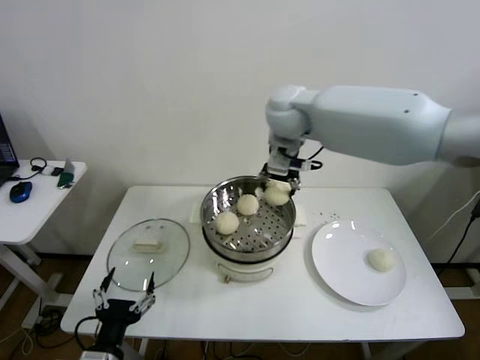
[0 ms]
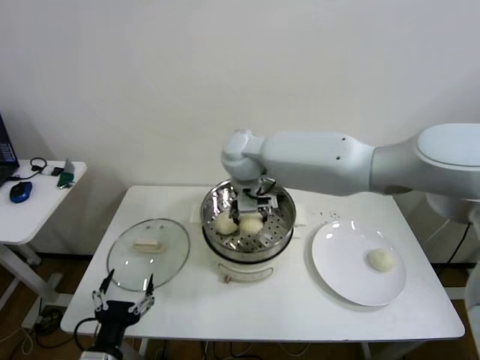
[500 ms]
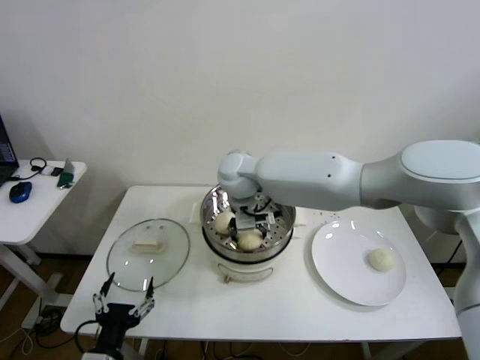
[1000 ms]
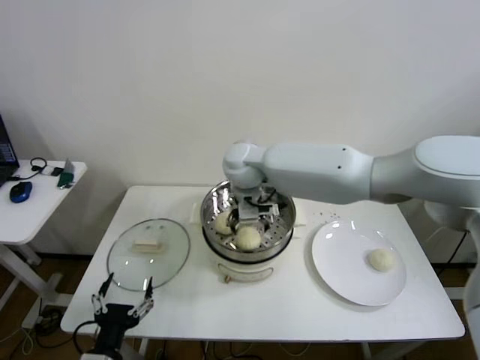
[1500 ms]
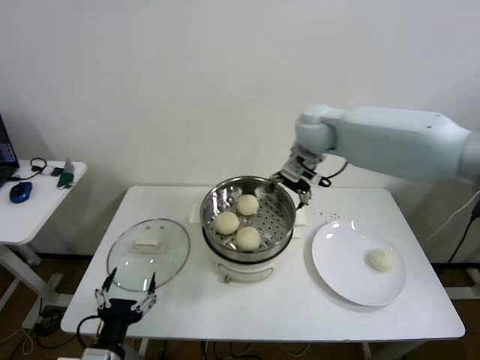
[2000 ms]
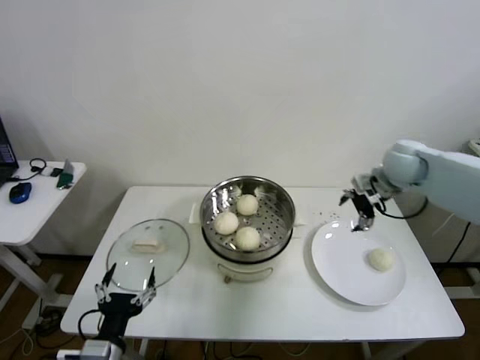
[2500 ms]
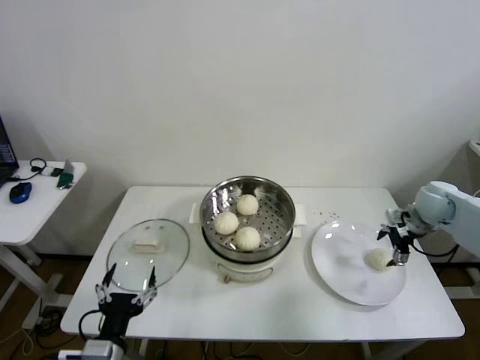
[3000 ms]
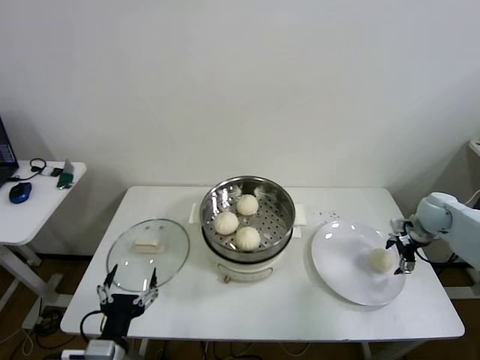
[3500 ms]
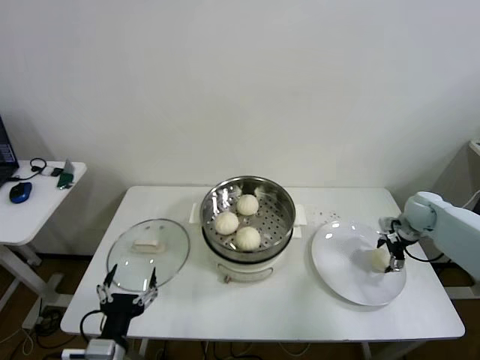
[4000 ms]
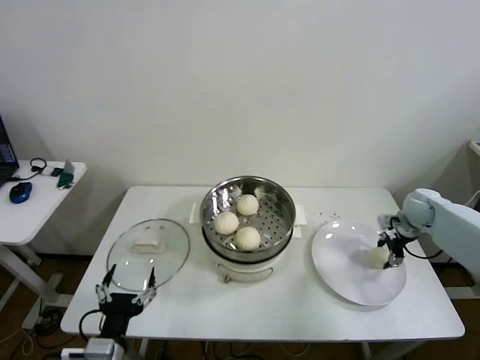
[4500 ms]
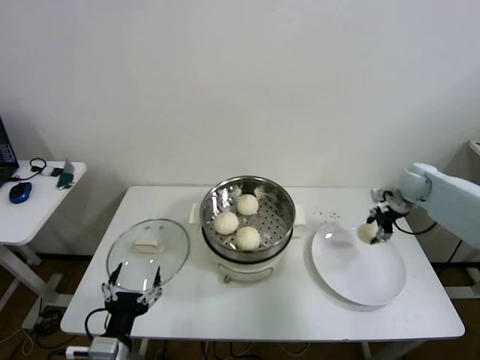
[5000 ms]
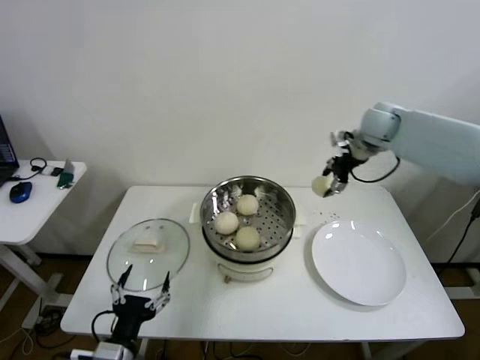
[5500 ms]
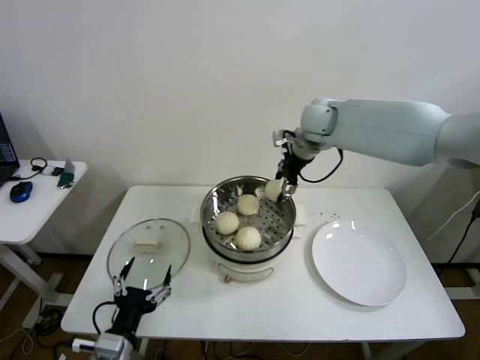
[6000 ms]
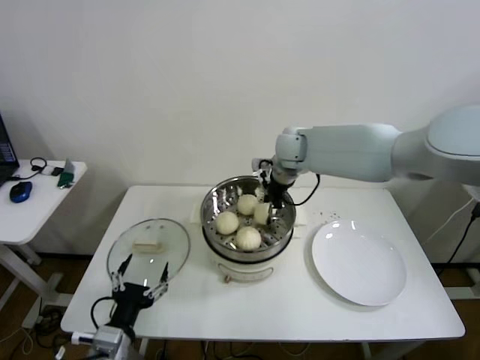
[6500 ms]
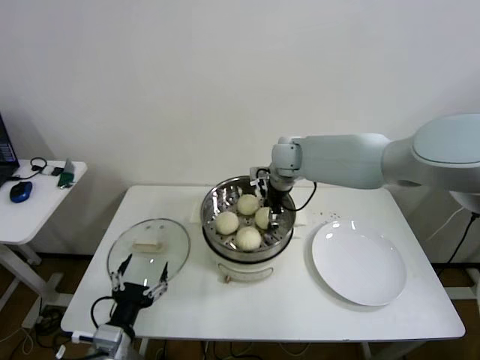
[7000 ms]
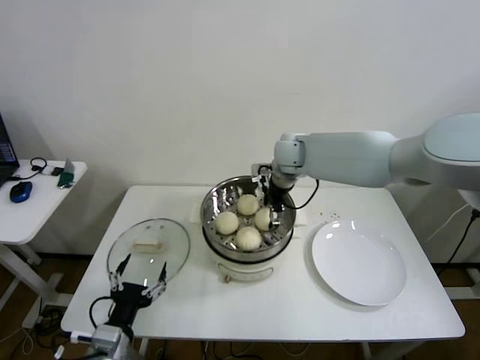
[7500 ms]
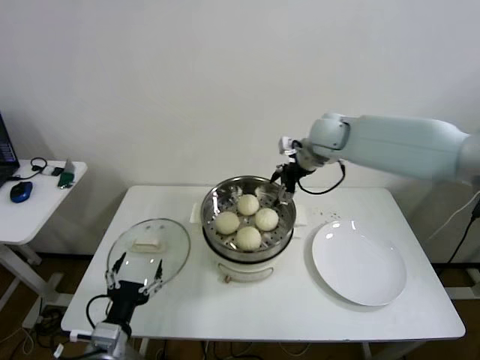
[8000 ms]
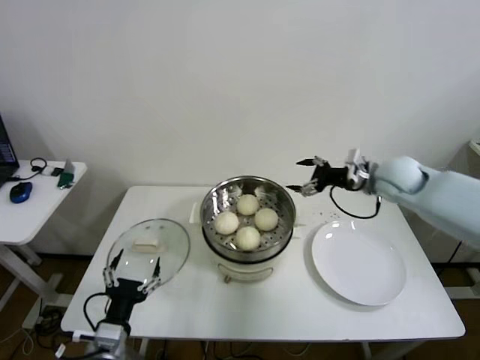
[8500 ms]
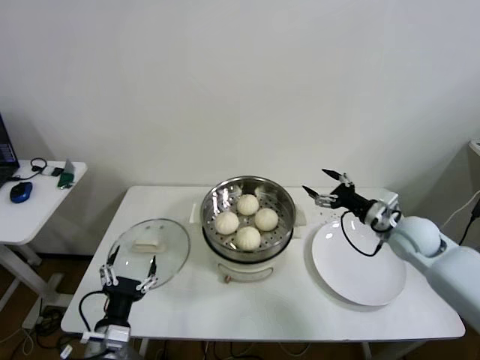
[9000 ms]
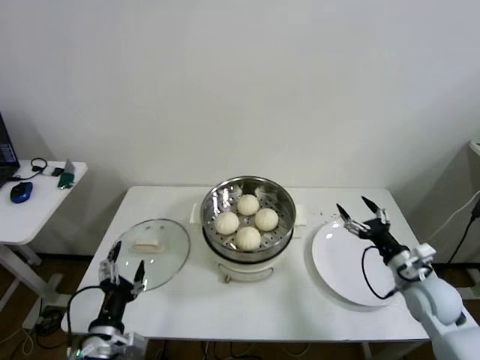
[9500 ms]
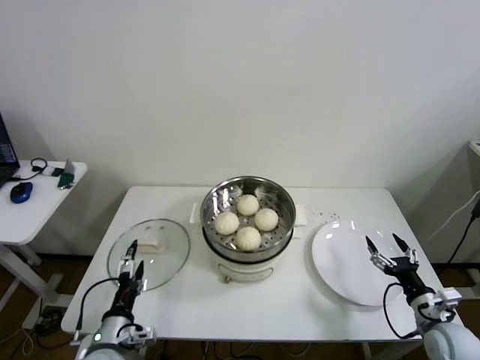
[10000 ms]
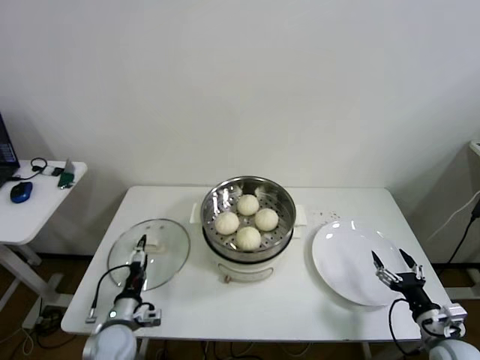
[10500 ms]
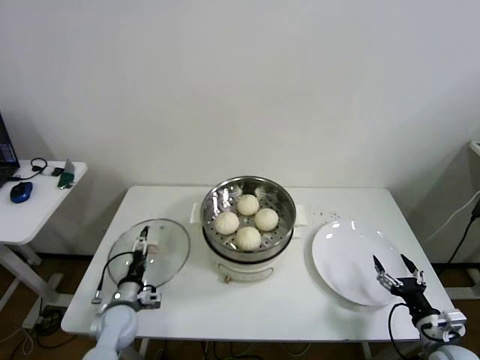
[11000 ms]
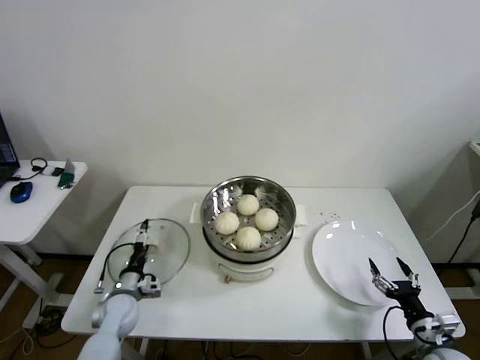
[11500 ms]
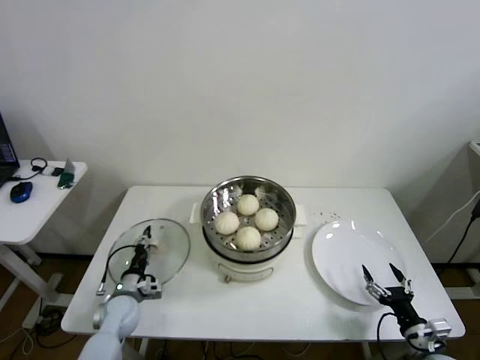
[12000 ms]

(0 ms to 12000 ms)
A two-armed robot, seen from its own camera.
Step, 1500 ms - 4000 ms: Grasp the baozi in the plate with right gripper.
Step, 4500 ms - 7000 ms: Place the baozi on the steamer with right gripper.
0 ms - 2000 ms: The right gripper travels to the right by about 10 cm, and opens.
2000 ms - 4000 ms: The right gripper moves to the right and downward, some 40 cm.
4000 ms - 6000 ms: The right gripper shifts roughly 35 cm to the left and upward, and closes up.
6000 ms - 8000 ms: The right gripper goes downward and returns, about 10 cm each way, and opens.
8000 ms - 10000 ms: The left gripper heads downward, covering some 5 cm. Meanwhile the right gripper heads backward, downward and to the right, covering approximately 50 cm.
10000 ms - 12000 ms: The right gripper goes about 5 cm downward; the left gripper is displaced forward and downward by about 15 cm, and closes its fingers.

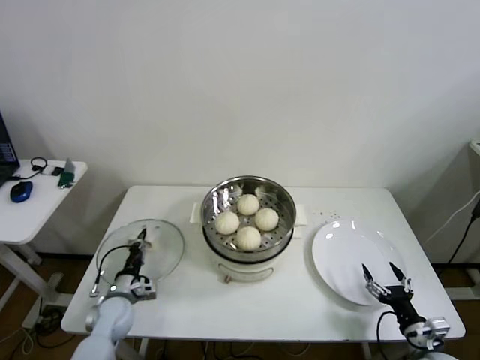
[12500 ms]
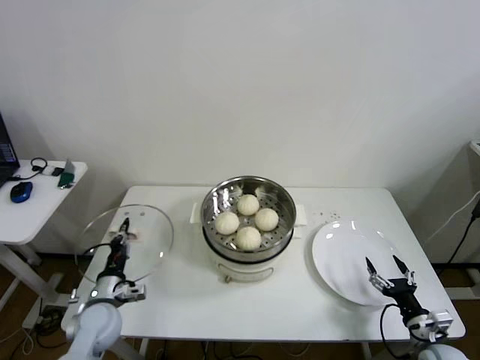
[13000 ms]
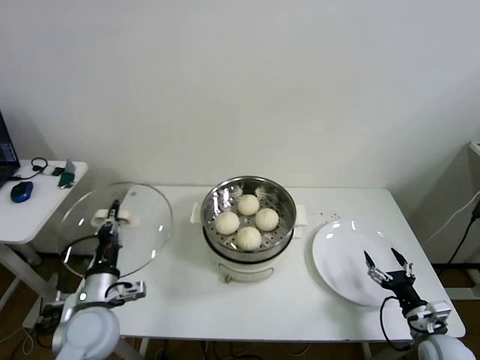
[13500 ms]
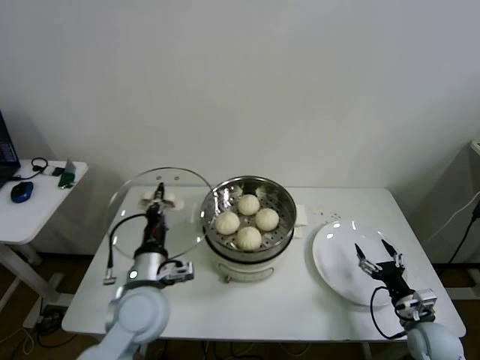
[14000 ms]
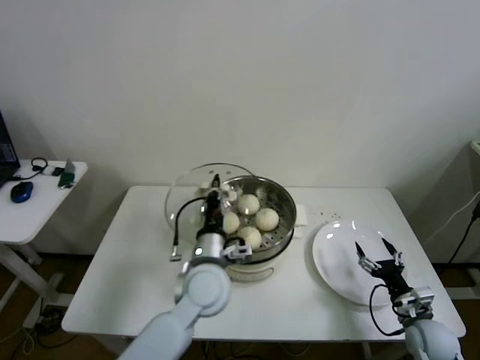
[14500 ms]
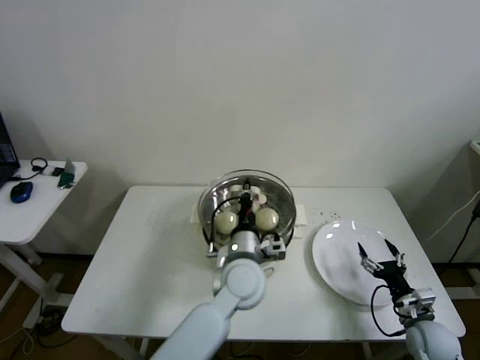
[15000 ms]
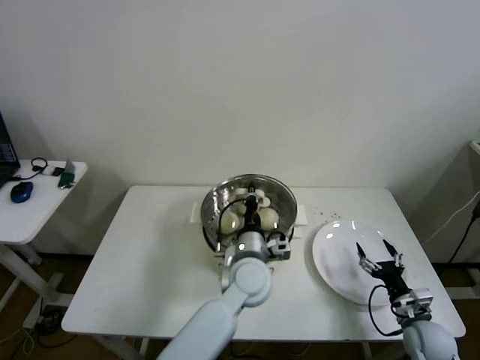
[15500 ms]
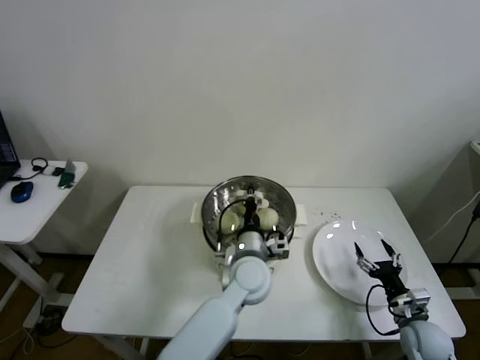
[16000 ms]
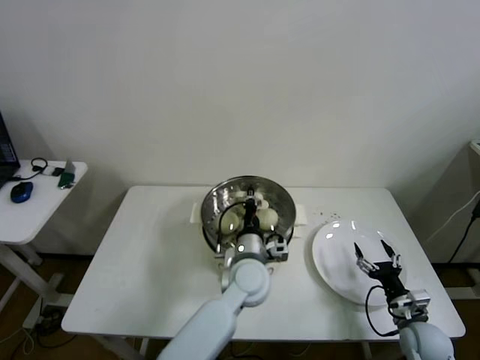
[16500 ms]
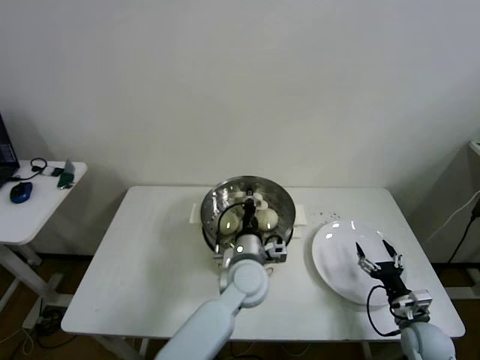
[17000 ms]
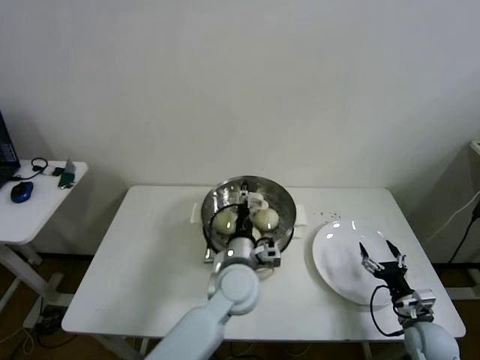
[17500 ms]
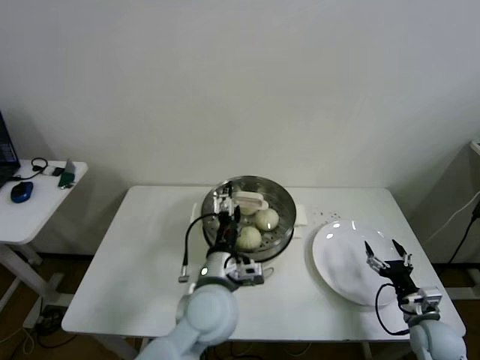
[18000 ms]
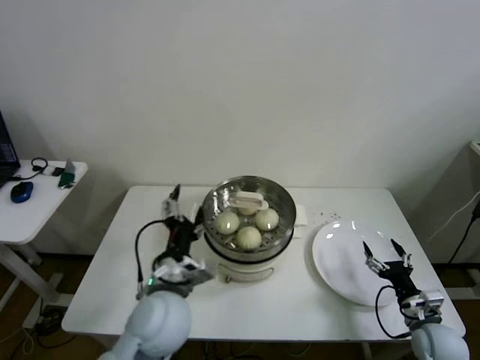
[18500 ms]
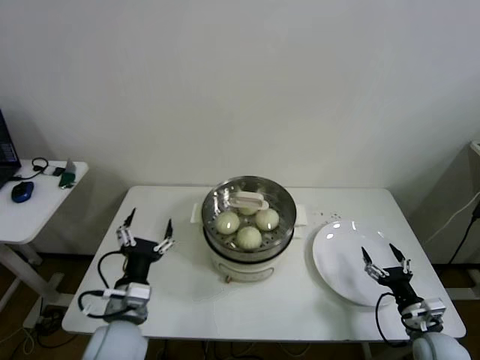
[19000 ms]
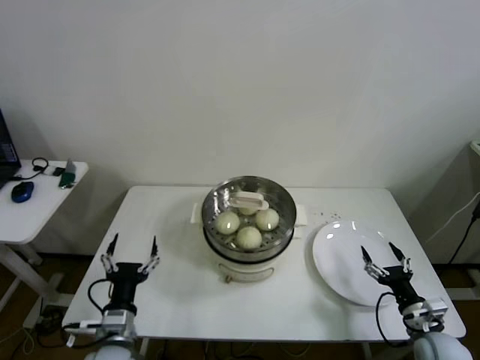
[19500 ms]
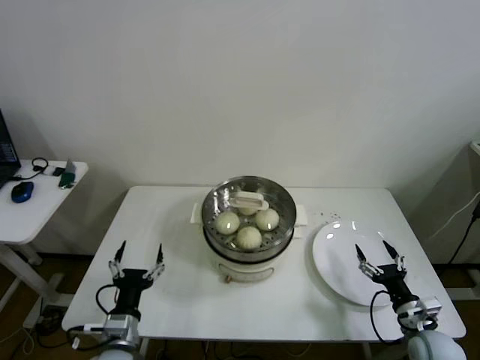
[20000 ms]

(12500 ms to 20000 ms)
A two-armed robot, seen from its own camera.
Step, 12500 ms - 17000 ms: Place the pot lid on the steamer with left gripper.
12500 ms - 14500 ms: The right gripper moves forward, approximately 5 cm; the left gripper travels to the right and upward by roughly 30 cm.
14500 ms - 16500 ms: The left gripper heads to the right, covering about 10 cm.
16500 ms - 18000 ms: The left gripper shifts about 10 cm backward and to the left, and opens.
18000 ms - 20000 ms: The left gripper travels to the left, downward and backward by some 25 cm.

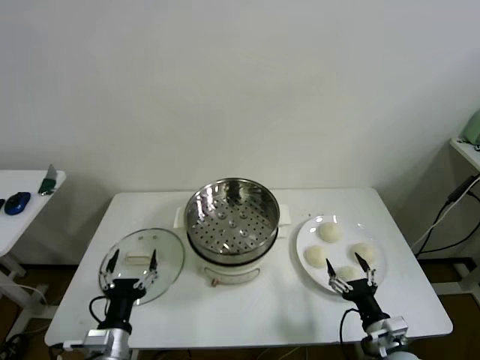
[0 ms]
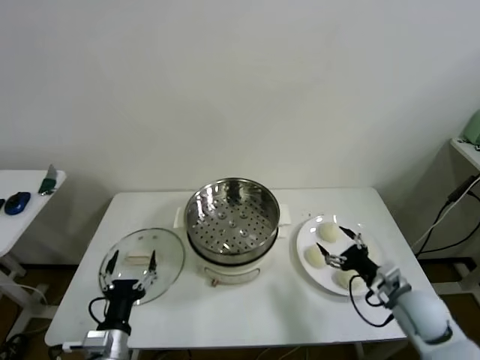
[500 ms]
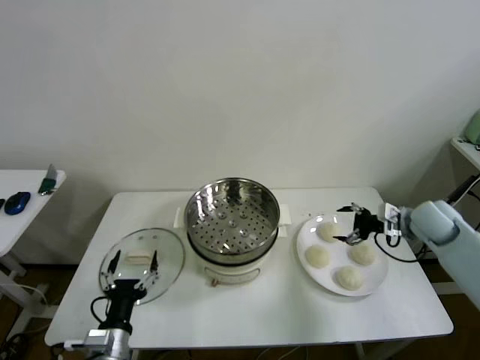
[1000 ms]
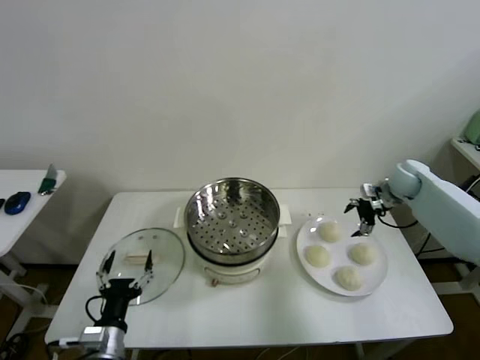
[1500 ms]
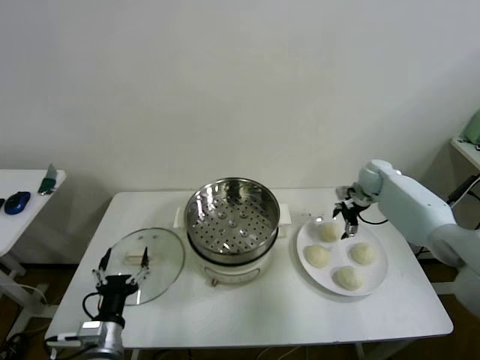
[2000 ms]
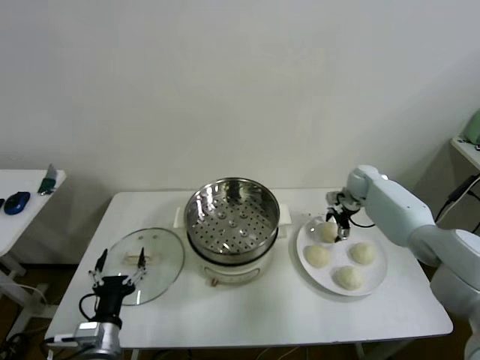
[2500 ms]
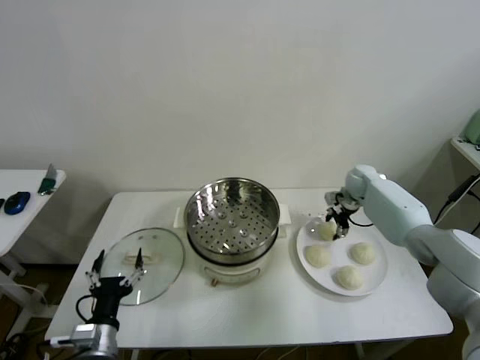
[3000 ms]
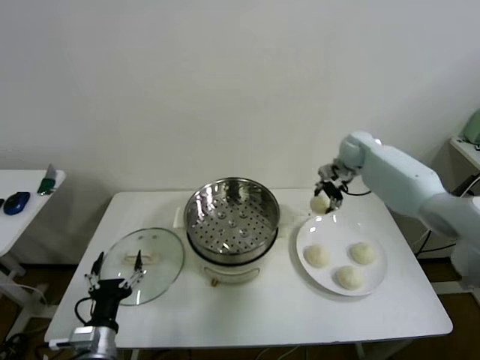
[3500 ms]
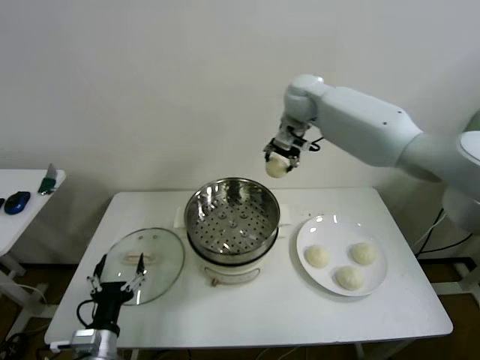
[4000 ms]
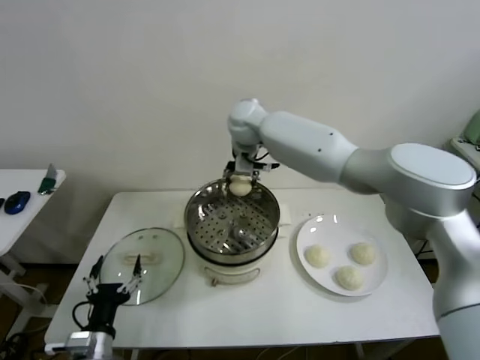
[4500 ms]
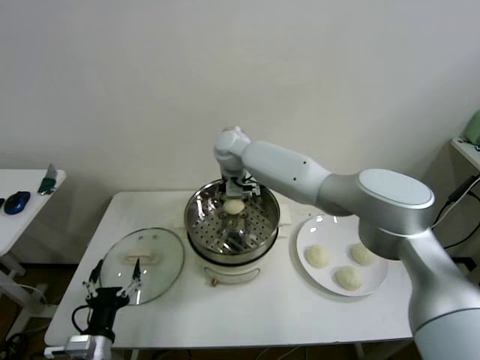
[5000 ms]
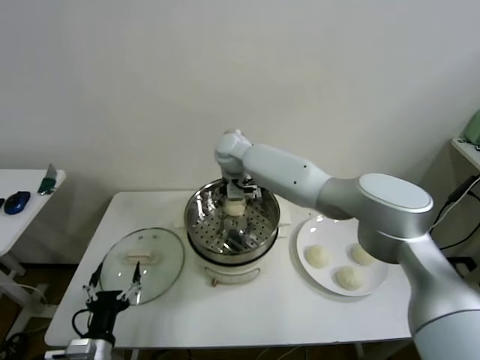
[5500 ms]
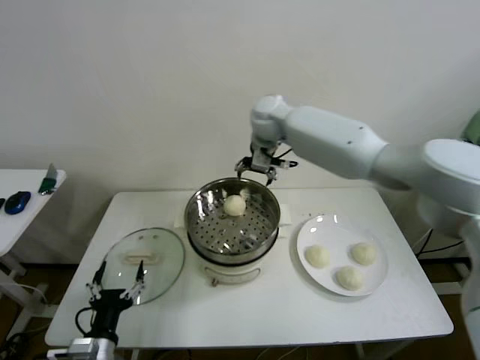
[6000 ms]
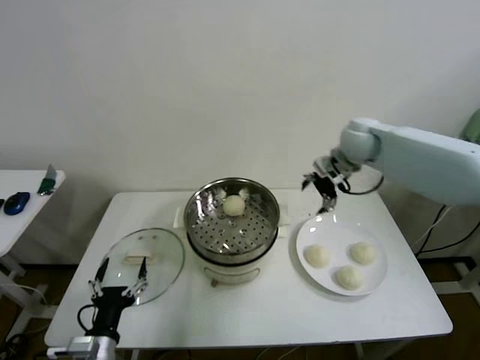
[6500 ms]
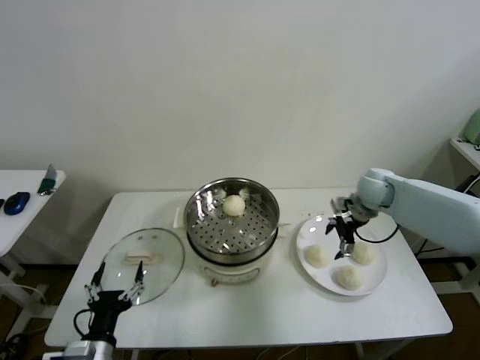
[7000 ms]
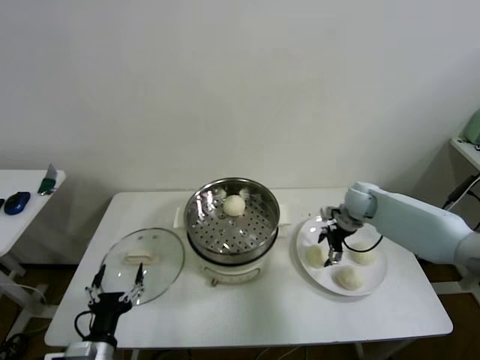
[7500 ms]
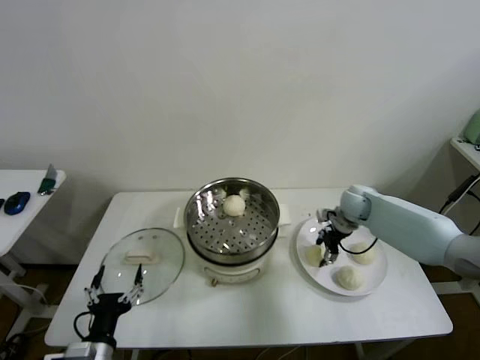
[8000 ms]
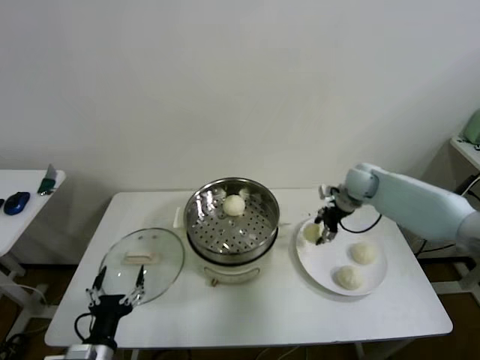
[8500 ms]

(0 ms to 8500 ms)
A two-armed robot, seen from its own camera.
Step, 0 ms - 2500 ms: Grasp the baozi in the plate with right gripper.
Step, 3000 ms - 5000 ms: Place the baozi on the steamer with right gripper.
Step, 5500 ms - 8000 ms: Grasp the baozi in the plate with right gripper.
2000 ms - 4000 ms: The right gripper shifts some 35 cm to the left and upward, and closes up.
4000 ms - 6500 ms: The right gripper shifts some 20 cm to the right, downward and backward, and opens up.
6500 ms - 8500 ms: The right gripper shifts about 10 cm downward, and closes.
